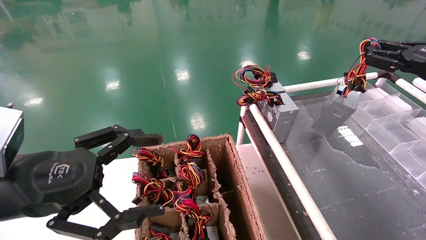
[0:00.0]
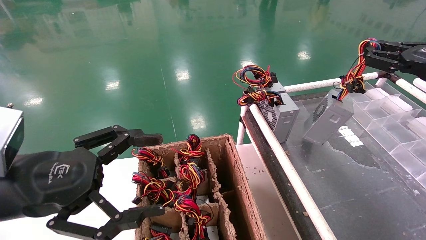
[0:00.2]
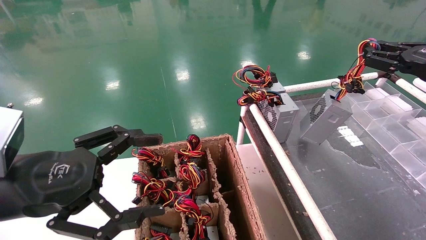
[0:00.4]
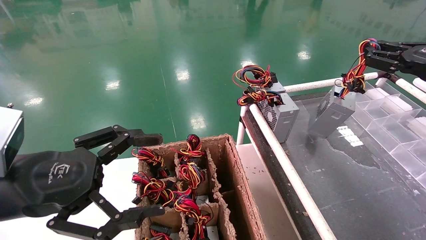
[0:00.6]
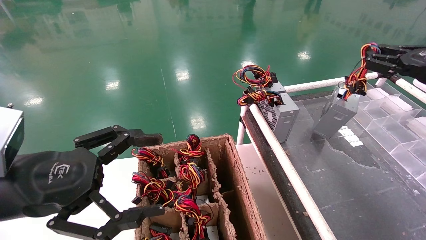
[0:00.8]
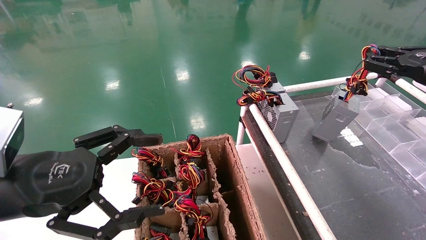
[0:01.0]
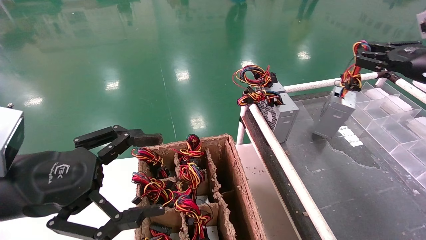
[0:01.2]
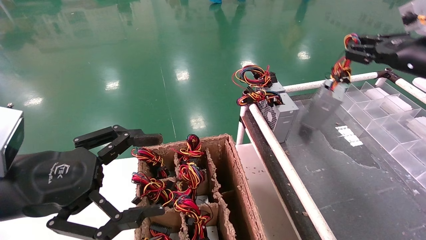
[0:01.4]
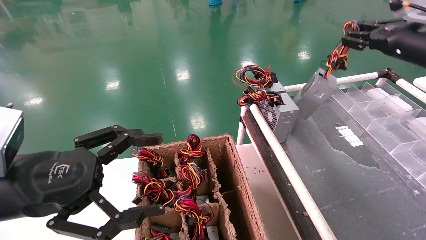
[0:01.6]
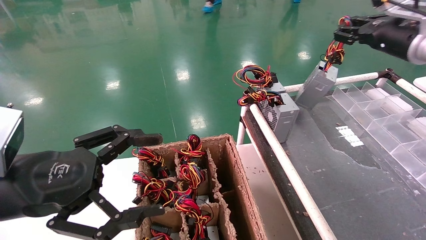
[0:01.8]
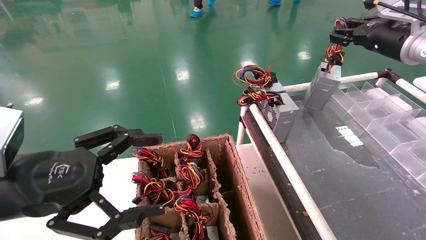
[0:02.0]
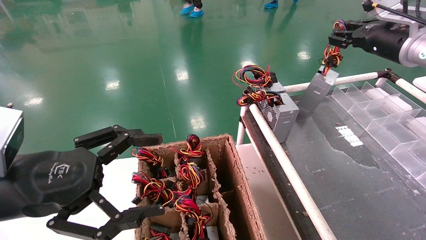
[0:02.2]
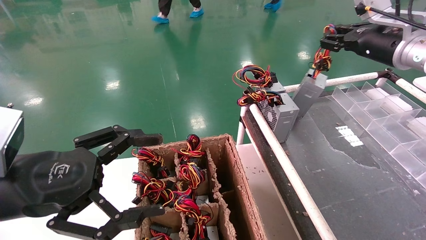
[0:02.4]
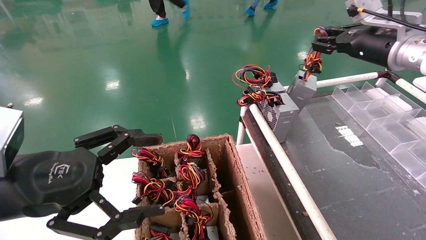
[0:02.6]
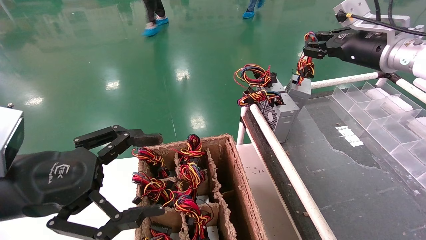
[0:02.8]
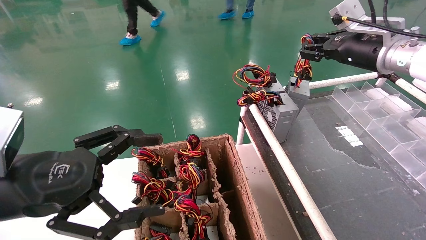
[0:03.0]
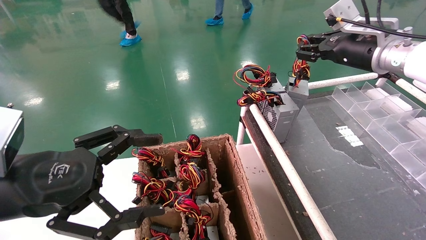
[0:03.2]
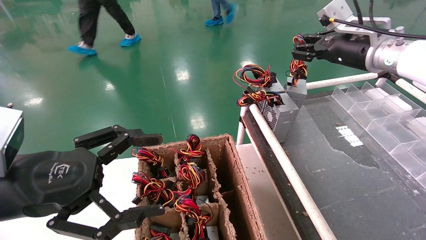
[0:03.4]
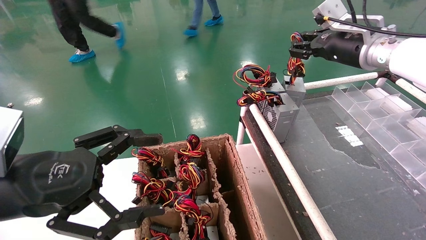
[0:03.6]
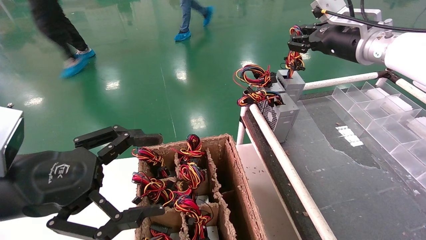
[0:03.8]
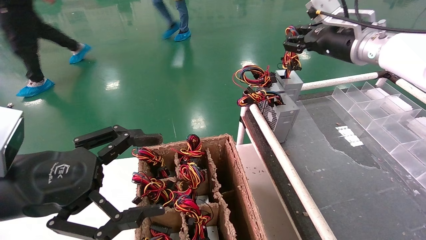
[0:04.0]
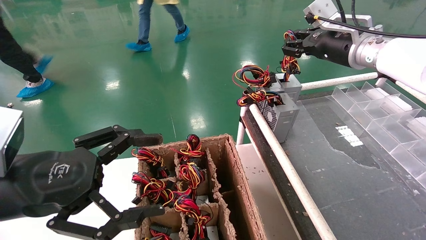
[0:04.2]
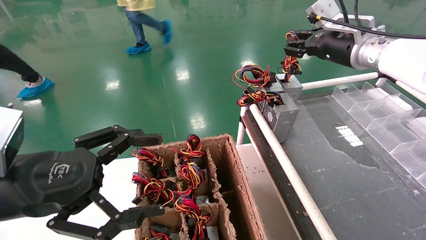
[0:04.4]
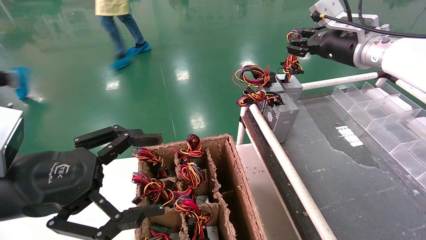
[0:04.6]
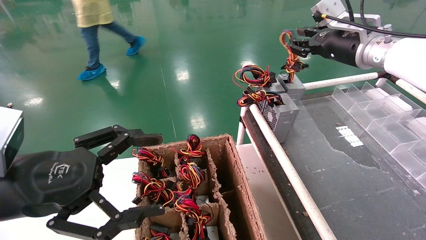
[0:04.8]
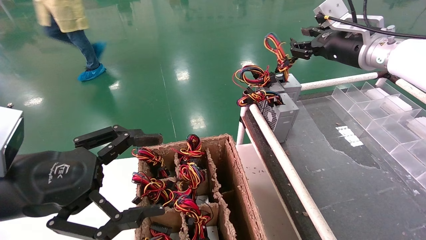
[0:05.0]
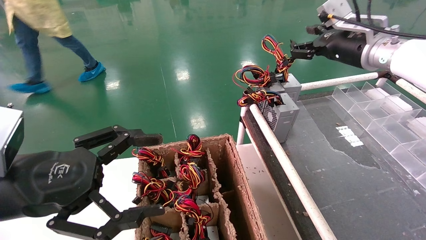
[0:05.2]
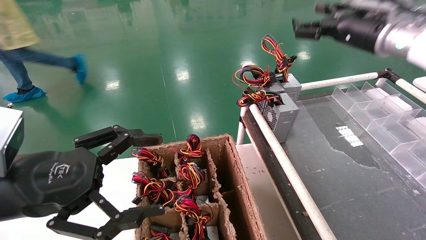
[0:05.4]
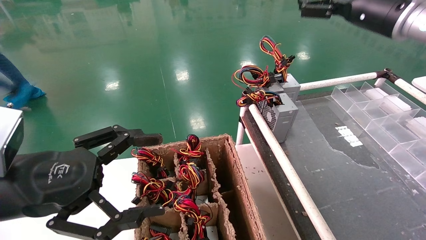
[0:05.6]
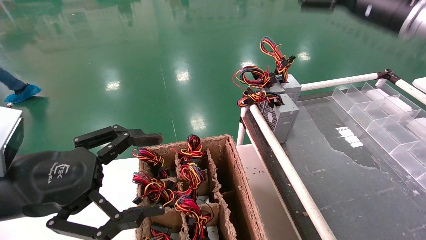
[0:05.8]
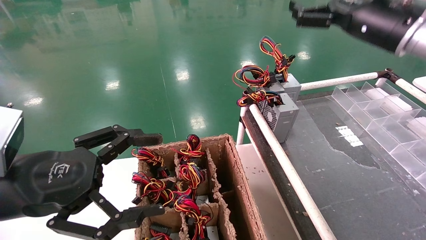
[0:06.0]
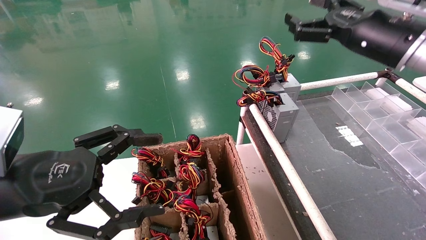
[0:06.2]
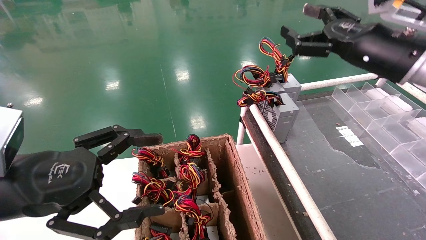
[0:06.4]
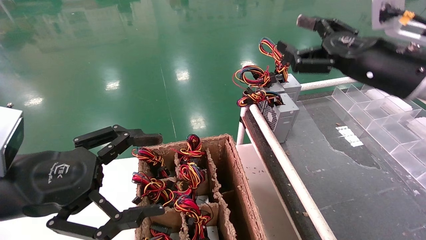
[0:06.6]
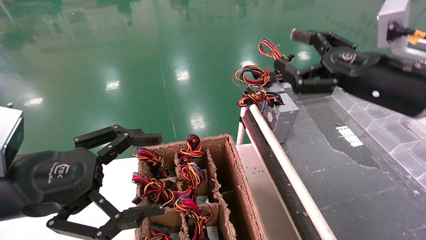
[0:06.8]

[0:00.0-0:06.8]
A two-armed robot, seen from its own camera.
Step, 0:00.0 to 0:04.8: Place the power supply on the operating table.
0:00.0 to 0:01.4: The right gripper shifts by approximately 5 cm.
0:01.4 to 0:02.8: The right gripper heads to the left, covering about 10 cm.
0:02.8 to 0:04.0: The right gripper moves approximately 5 cm.
0:04.0 to 0:05.4: The right gripper opens its fingers.
0:05.4 to 0:06.8: The right gripper travels backward and downward by approximately 15 cm, and opens up.
